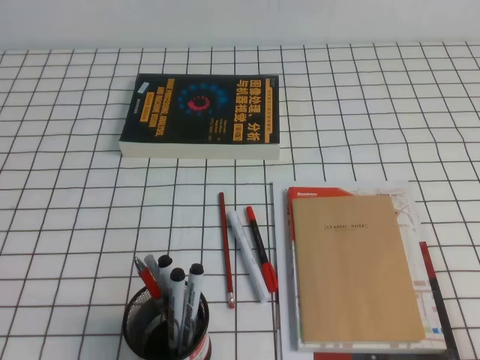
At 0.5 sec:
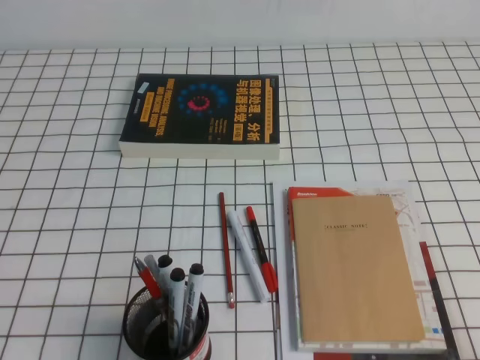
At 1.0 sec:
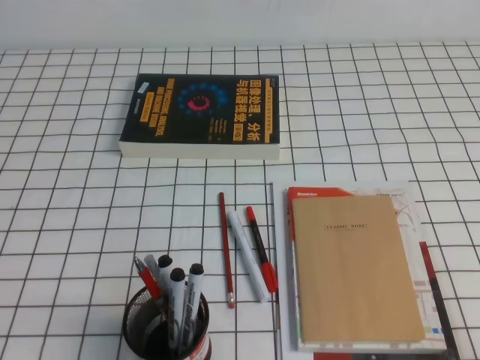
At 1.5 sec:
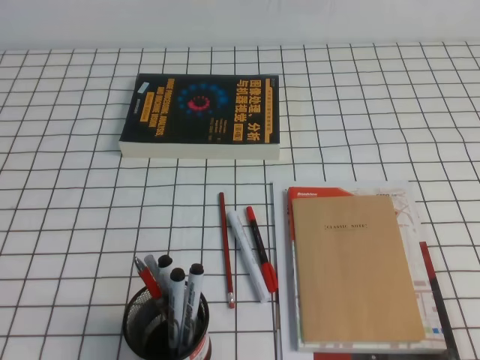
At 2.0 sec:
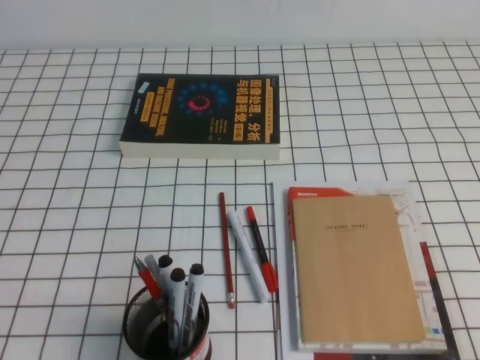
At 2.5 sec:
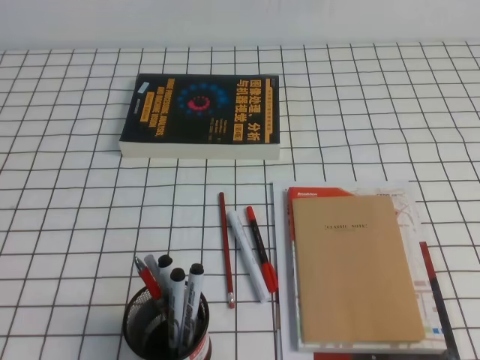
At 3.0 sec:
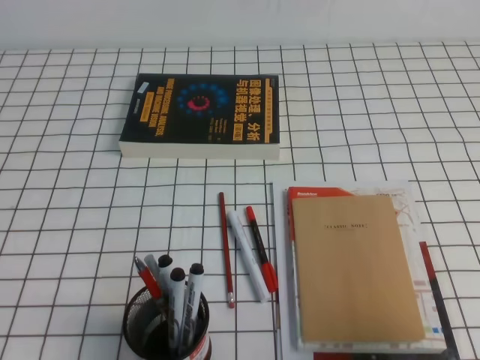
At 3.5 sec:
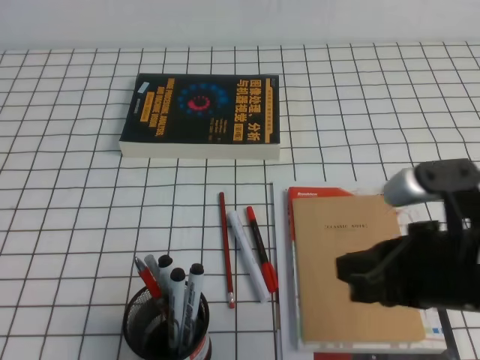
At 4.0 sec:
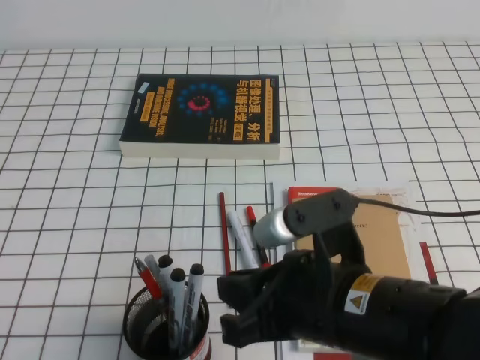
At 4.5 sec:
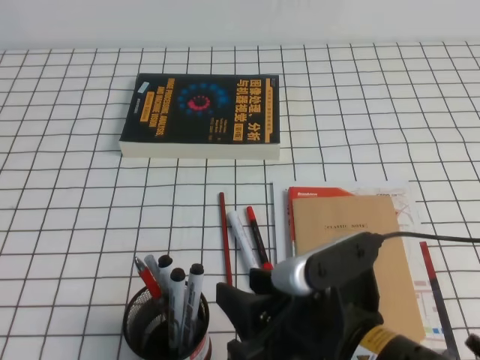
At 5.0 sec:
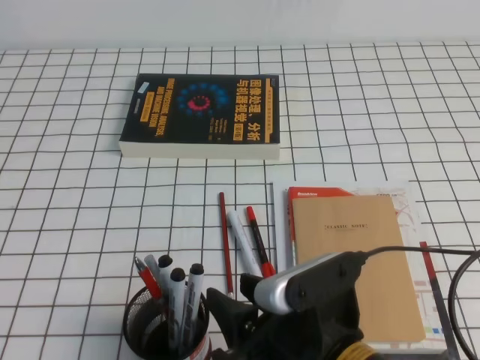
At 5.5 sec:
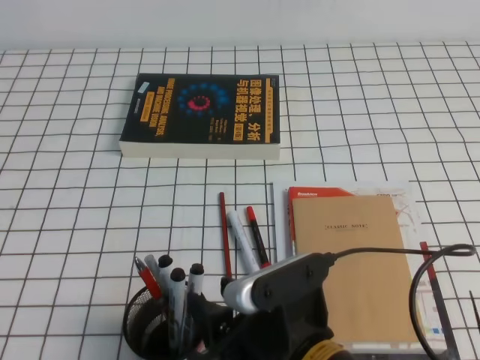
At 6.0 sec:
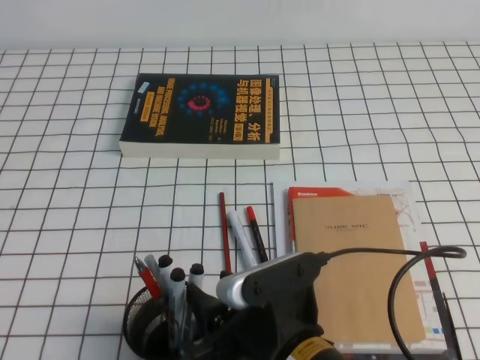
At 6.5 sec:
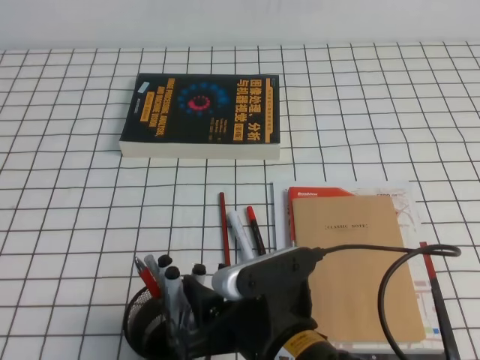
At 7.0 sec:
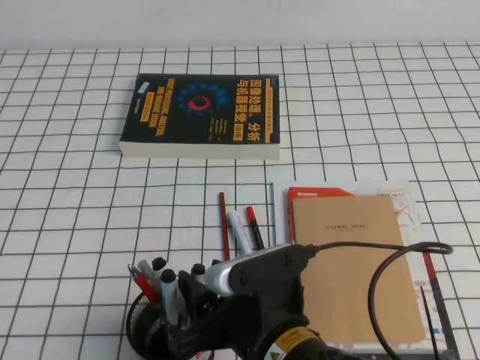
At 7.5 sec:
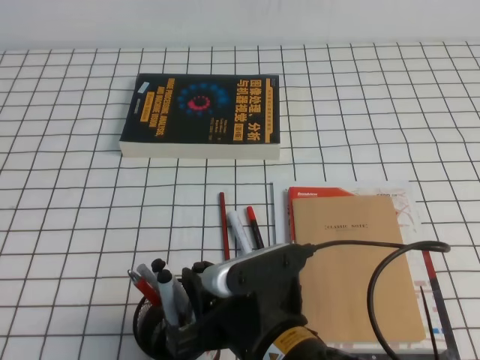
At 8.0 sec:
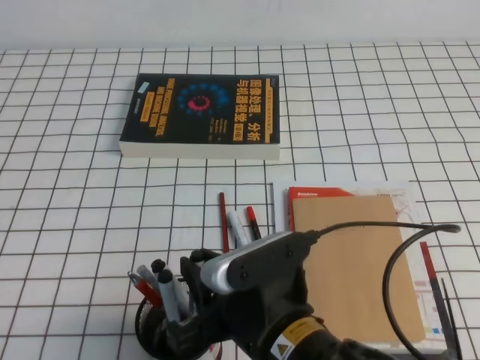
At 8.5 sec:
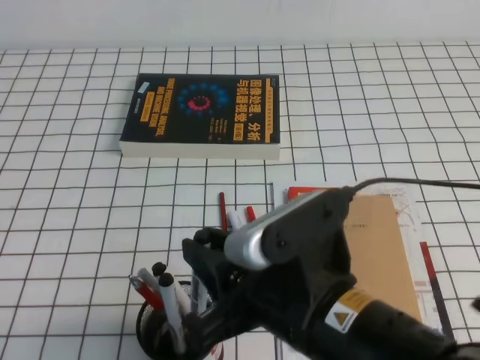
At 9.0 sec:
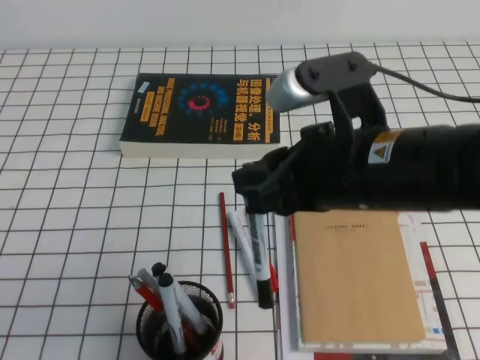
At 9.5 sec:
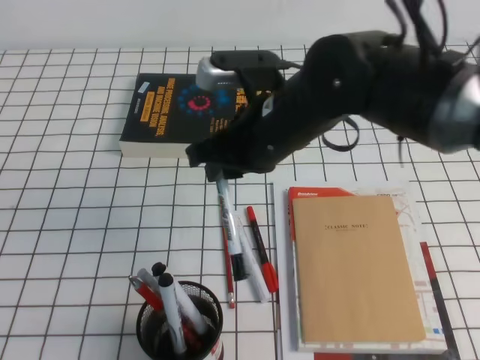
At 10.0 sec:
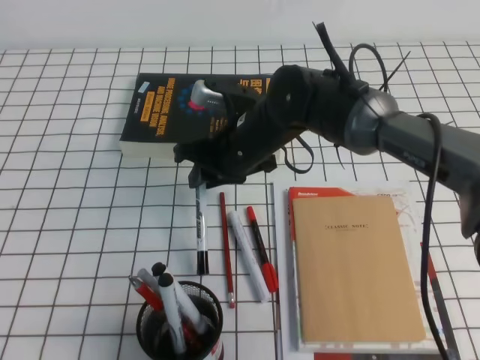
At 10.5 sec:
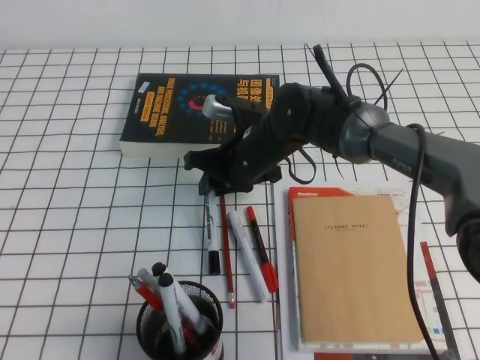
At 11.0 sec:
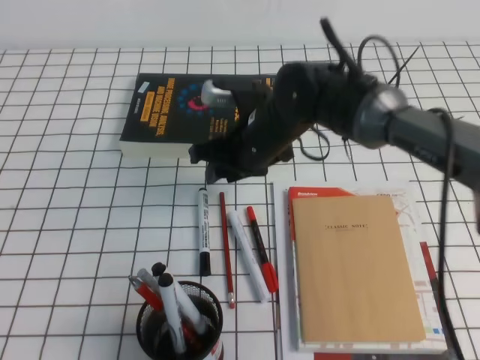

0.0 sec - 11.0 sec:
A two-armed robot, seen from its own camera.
2.0 sec - 3.5 sec: The right gripper goes approximately 20 cm to the left, forward and upward.
3.5 sec - 5.5 sec: The right gripper heads to the left and downward, covering some 15 cm, and opens its fingers.
5.5 sec - 7.5 sec: The right gripper closes.
7.5 sec - 9.0 sec: The right gripper travels upward, to the right and forward by about 15 cm.
9.0 sec - 11.0 sec: The right gripper heads forward and downward, covering some 20 cm.

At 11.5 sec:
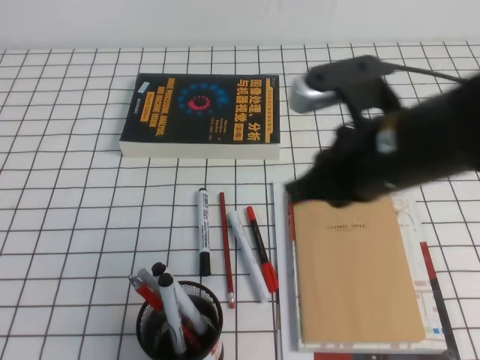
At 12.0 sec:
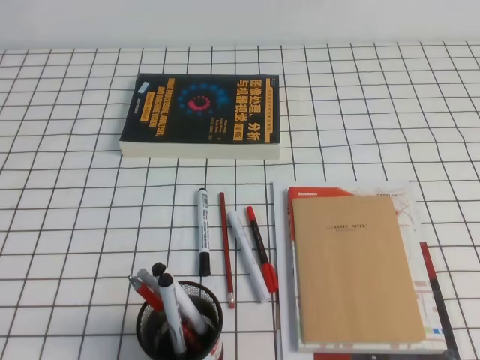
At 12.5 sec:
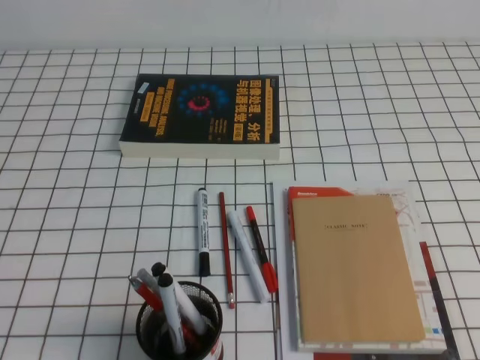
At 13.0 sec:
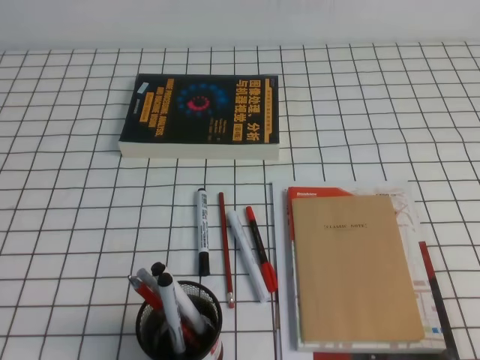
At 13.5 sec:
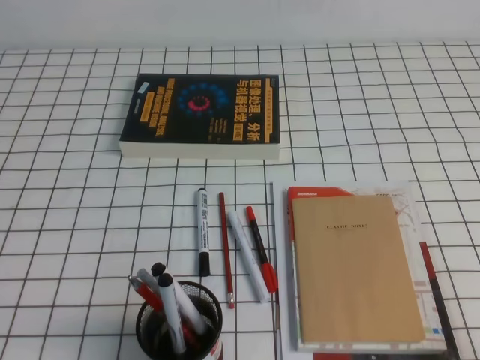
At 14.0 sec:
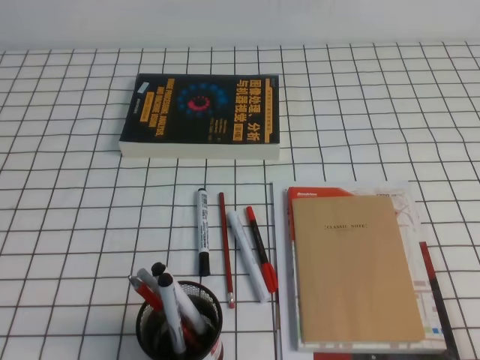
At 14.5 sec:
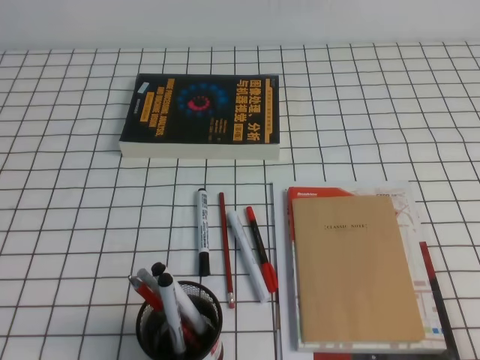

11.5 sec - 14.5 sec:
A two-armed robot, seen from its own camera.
Step, 11.5 sec - 14.5 sec: Pick up the pen from the pen holder.
11.5 sec - 13.0 sec: The right gripper moves backward, to the right and downward, roughly 30 cm.

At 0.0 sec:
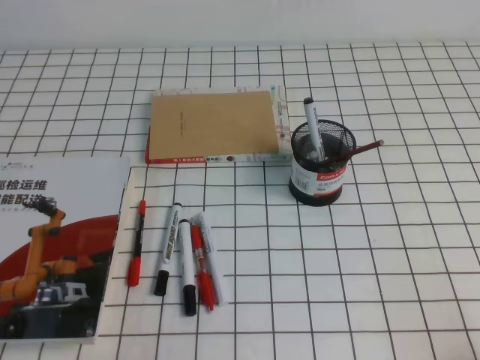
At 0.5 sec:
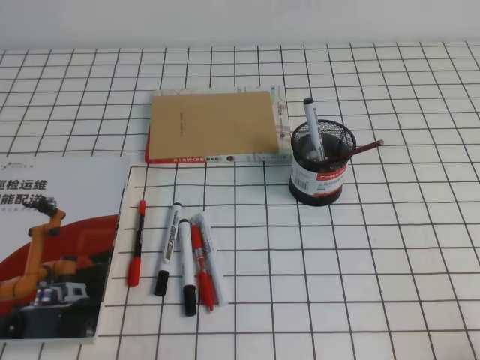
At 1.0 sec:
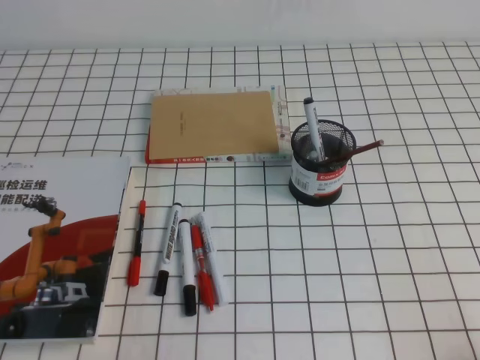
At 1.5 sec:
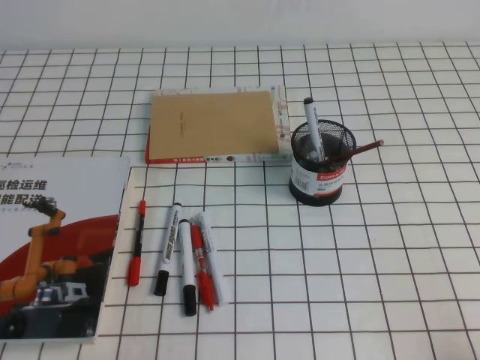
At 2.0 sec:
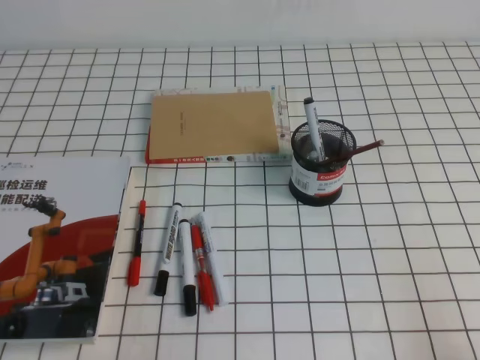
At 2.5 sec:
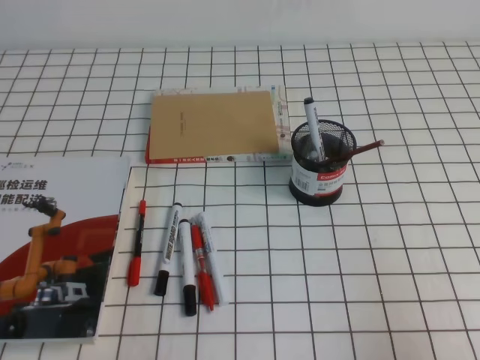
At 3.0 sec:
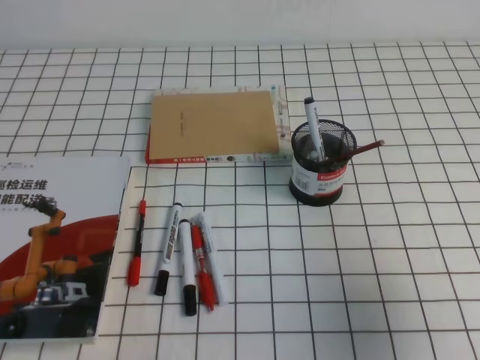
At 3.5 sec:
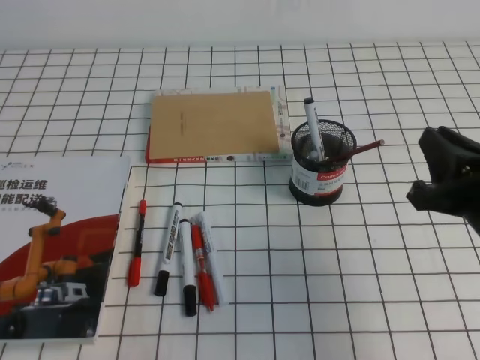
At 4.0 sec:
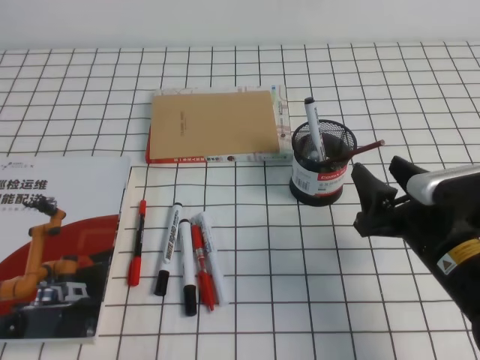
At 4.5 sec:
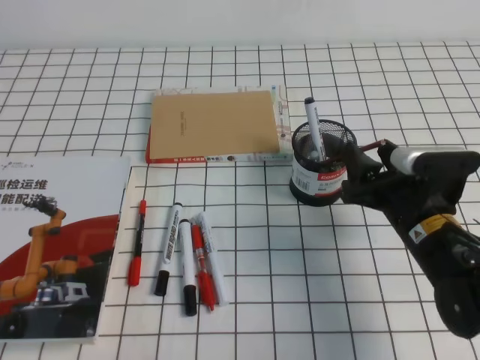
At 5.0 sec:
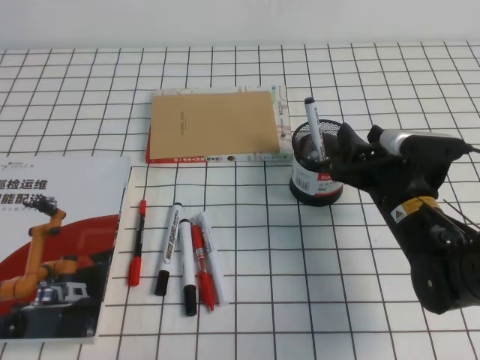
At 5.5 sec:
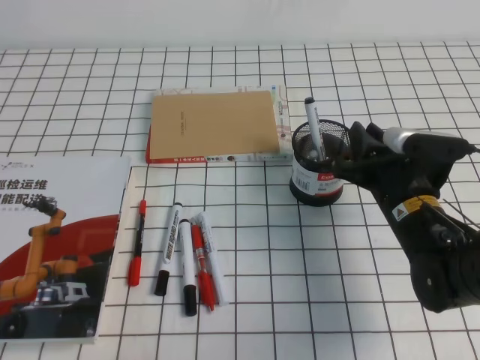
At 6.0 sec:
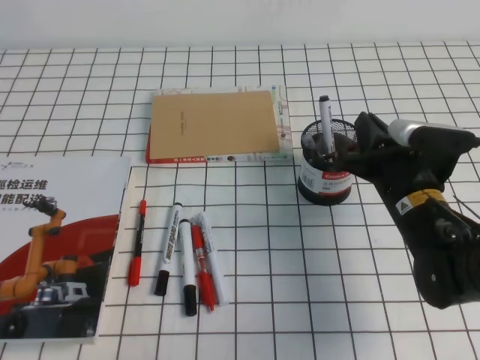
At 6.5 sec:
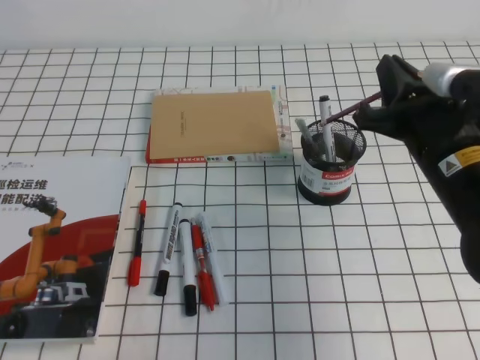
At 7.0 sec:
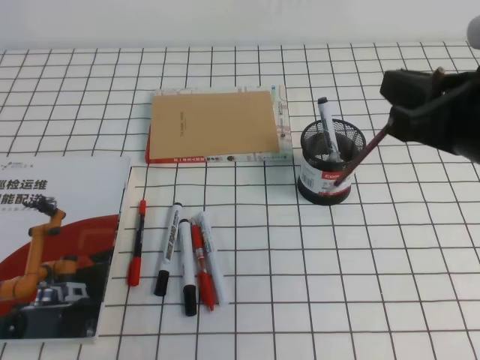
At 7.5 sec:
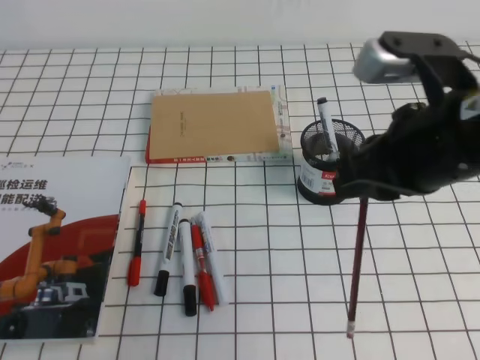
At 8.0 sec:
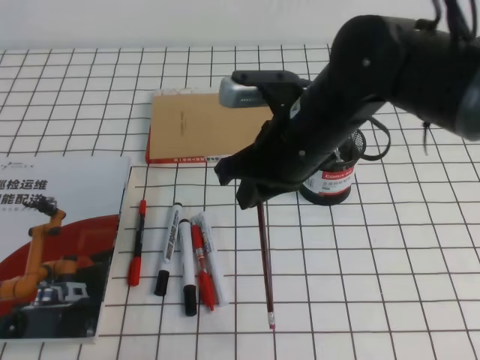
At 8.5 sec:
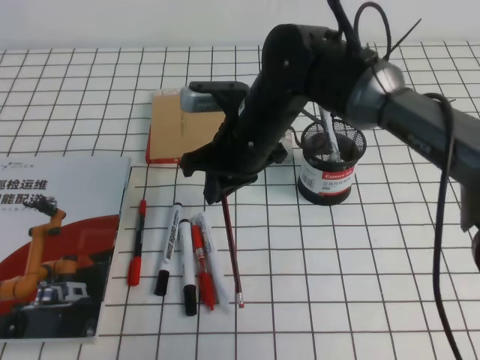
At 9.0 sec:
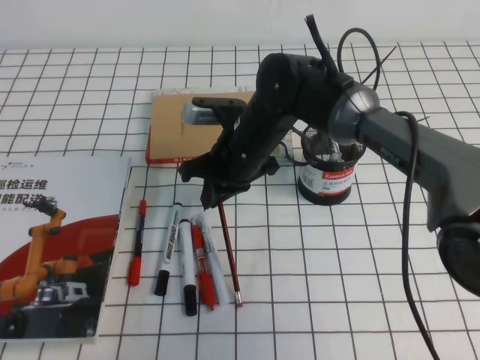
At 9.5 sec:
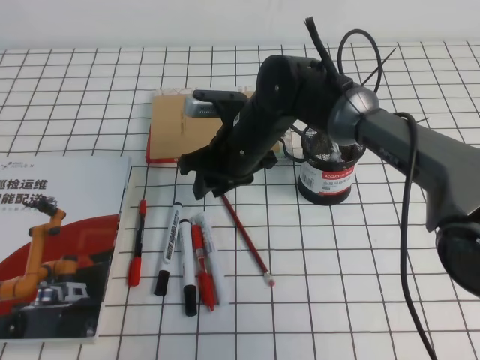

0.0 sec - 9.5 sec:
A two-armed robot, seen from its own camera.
2.0 sec - 4.0 sec: The right gripper is displaced forward and to the left by some 20 cm, and opens its fingers.
4.0 sec - 5.5 sec: The right gripper moves forward, approximately 5 cm, and closes.
5.5 sec - 7.5 sec: The right gripper is displaced upward and backward by some 20 cm, and closes its fingers.
7.5 sec - 9.5 sec: The right gripper heads forward, to the left and downward, covering about 30 cm, and opens.

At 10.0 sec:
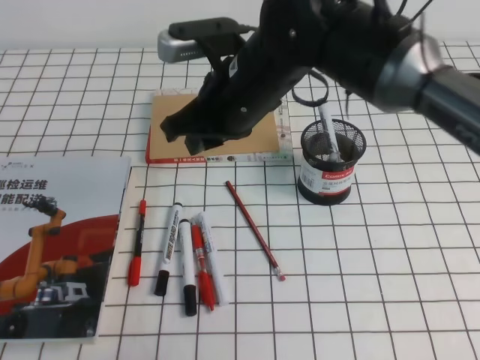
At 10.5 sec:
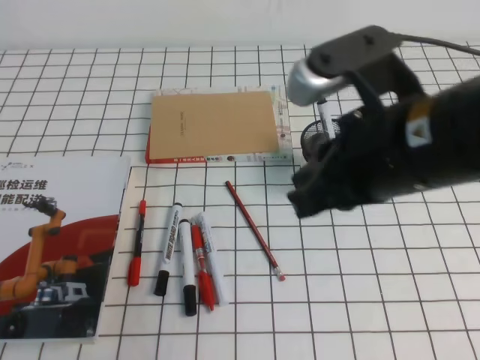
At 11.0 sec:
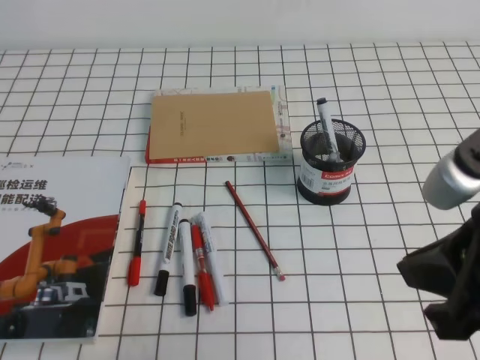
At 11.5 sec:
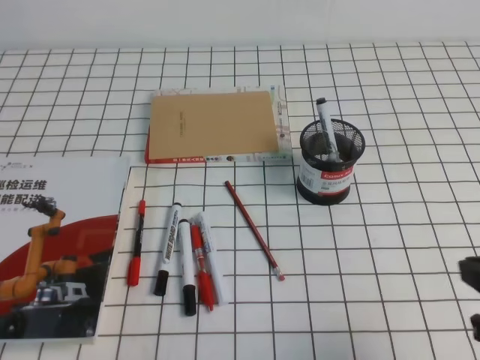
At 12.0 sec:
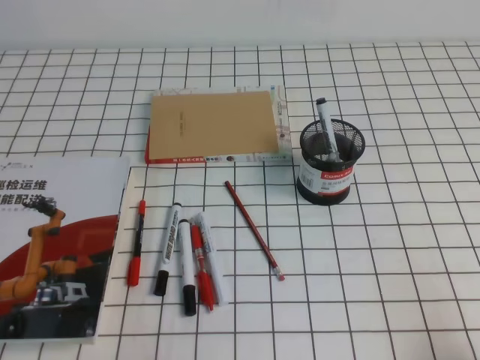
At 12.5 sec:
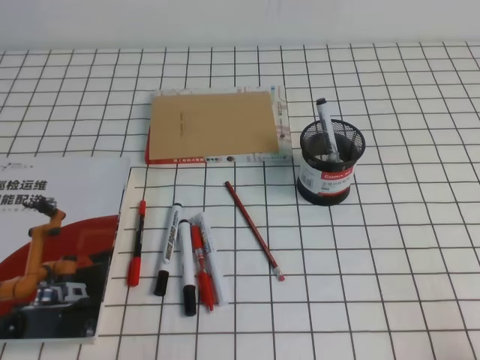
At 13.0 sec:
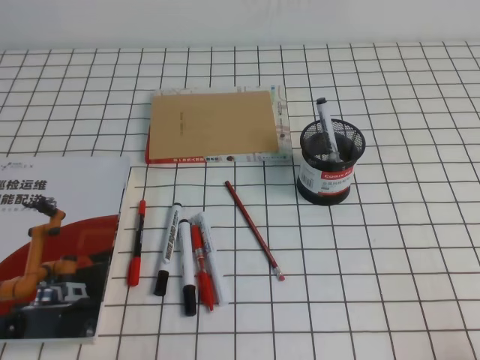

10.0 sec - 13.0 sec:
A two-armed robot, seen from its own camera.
Step, 10.0 sec - 13.0 sec: Pick up the pen from the pen holder.
10.0 sec - 11.5 sec: The right gripper travels to the right and backward by approximately 35 cm.
11.5 sec - 13.0 sec: The right gripper travels downward, backward and to the right by about 15 cm.
